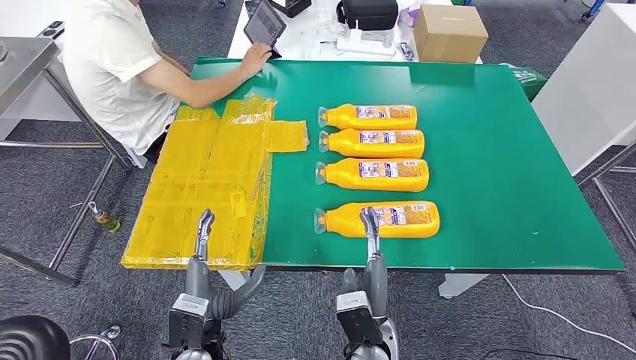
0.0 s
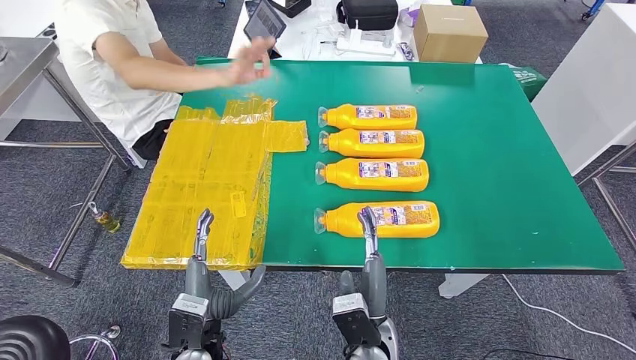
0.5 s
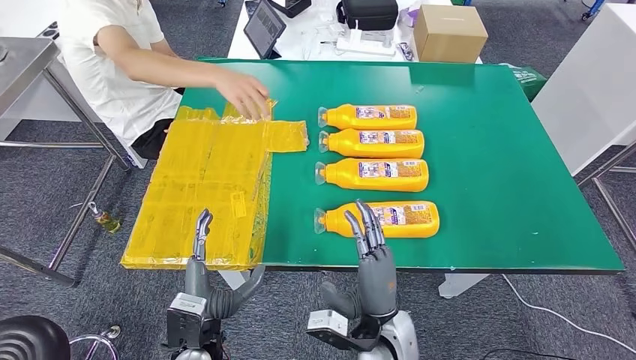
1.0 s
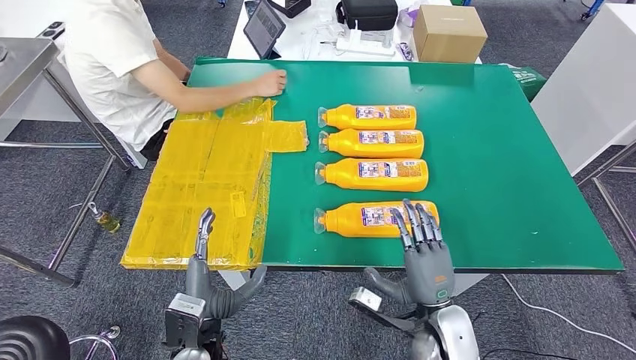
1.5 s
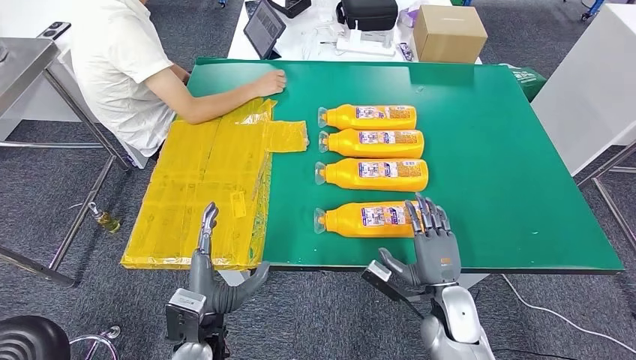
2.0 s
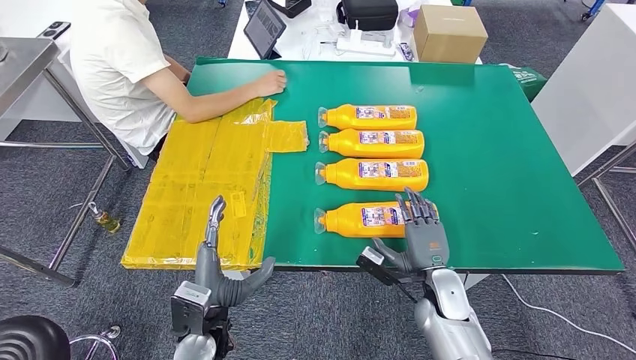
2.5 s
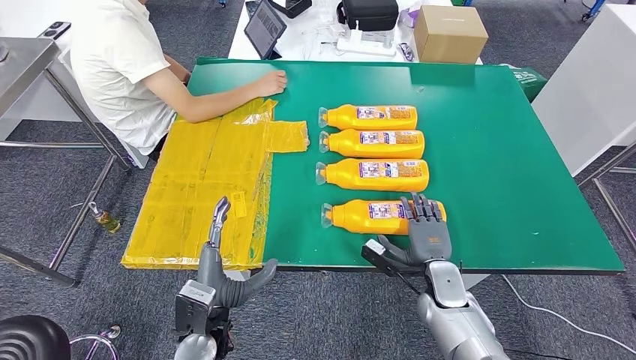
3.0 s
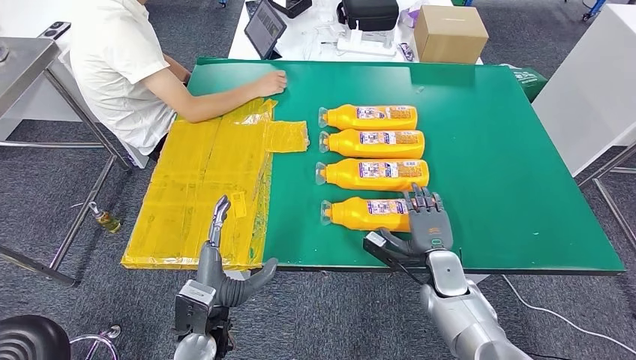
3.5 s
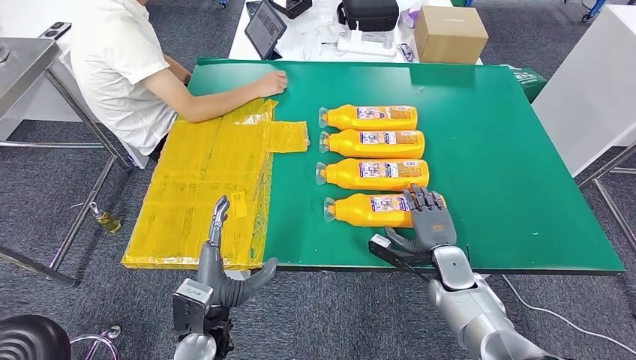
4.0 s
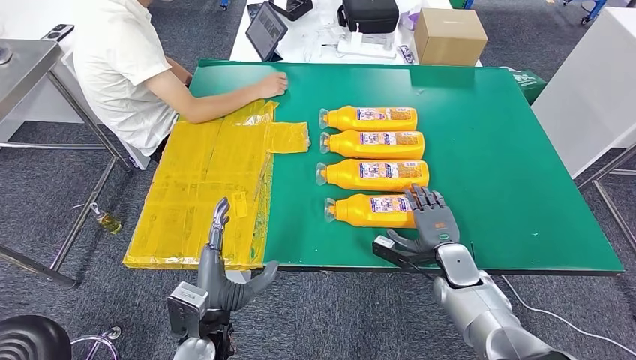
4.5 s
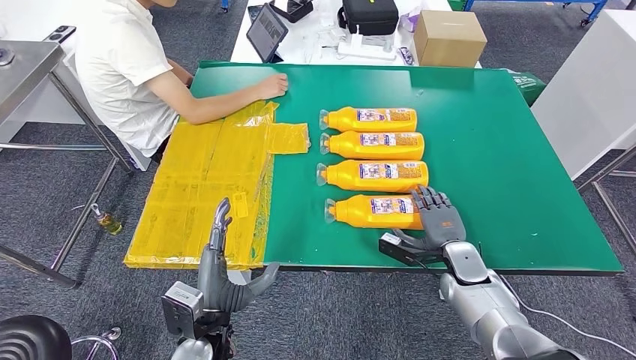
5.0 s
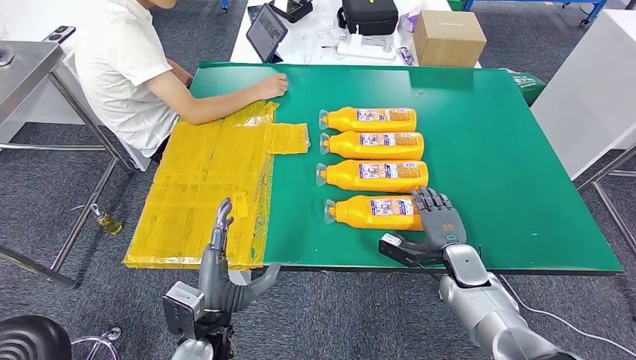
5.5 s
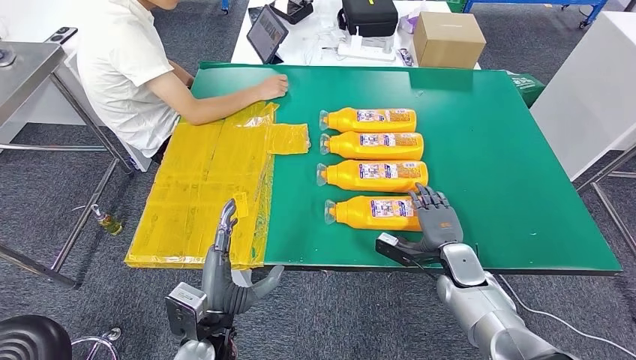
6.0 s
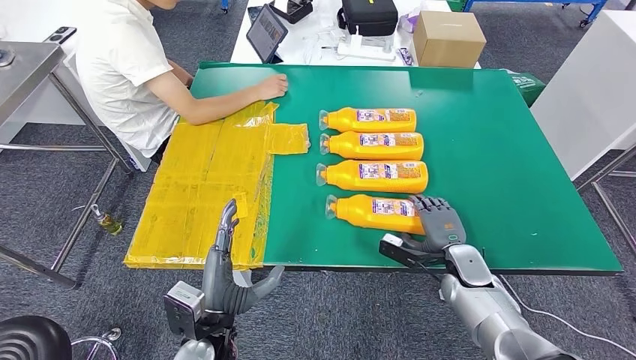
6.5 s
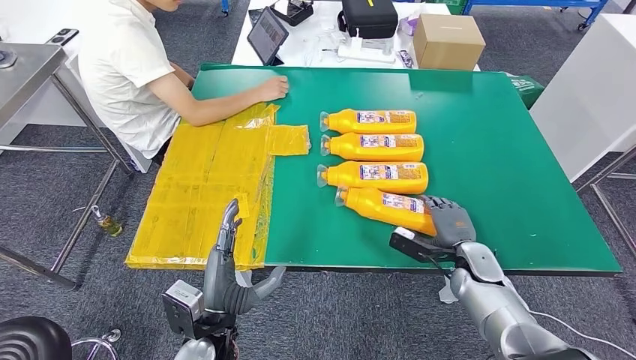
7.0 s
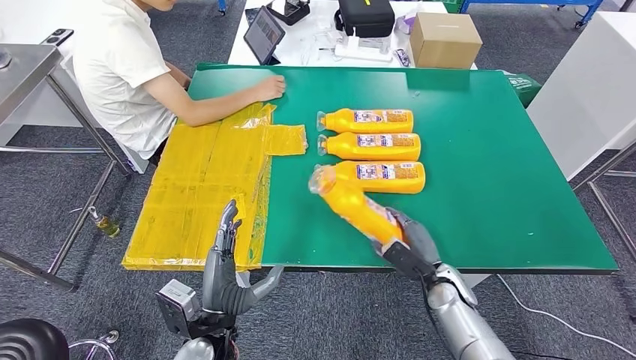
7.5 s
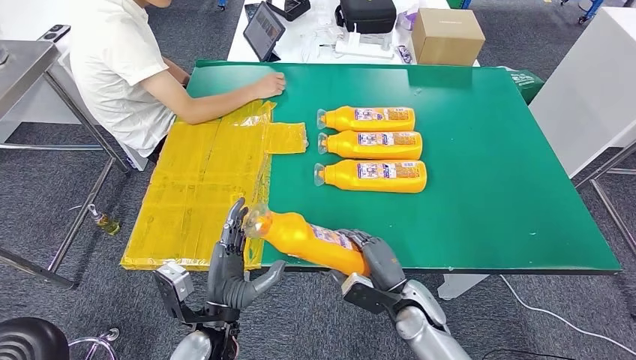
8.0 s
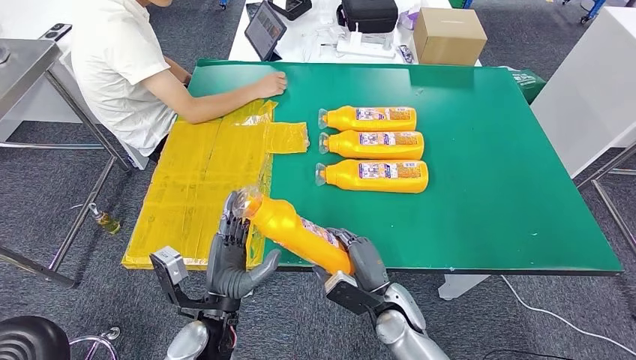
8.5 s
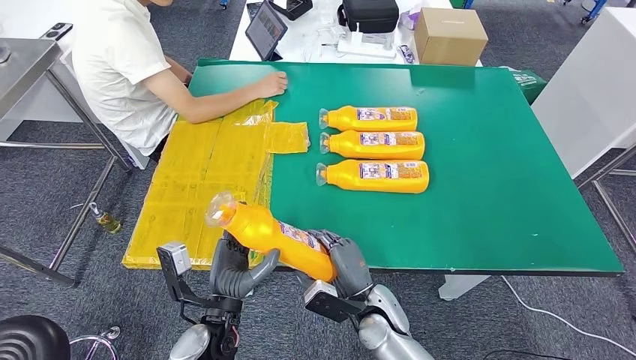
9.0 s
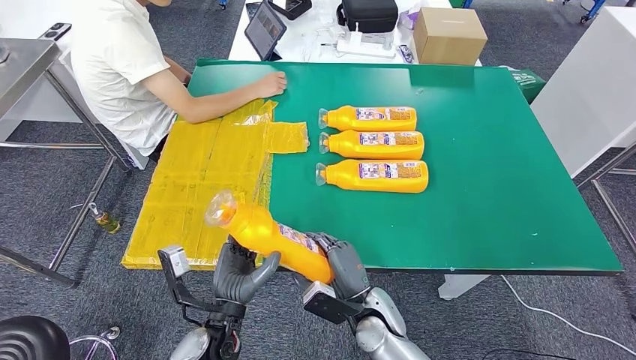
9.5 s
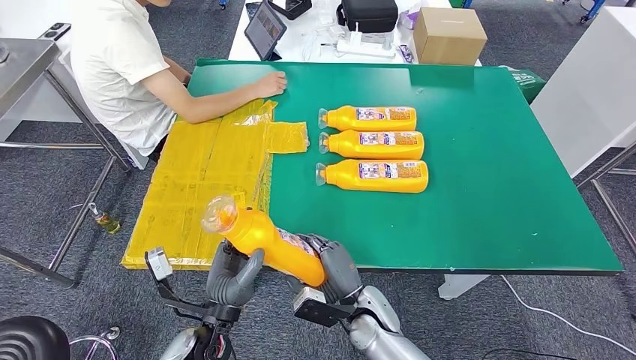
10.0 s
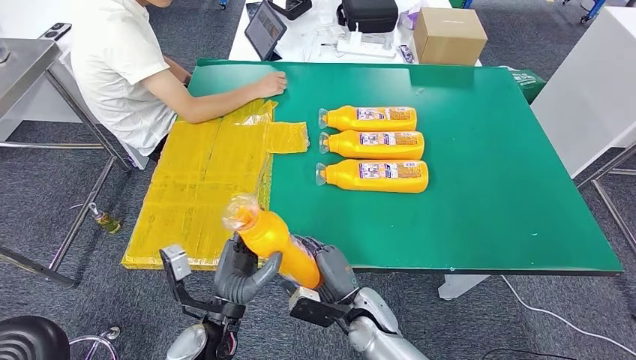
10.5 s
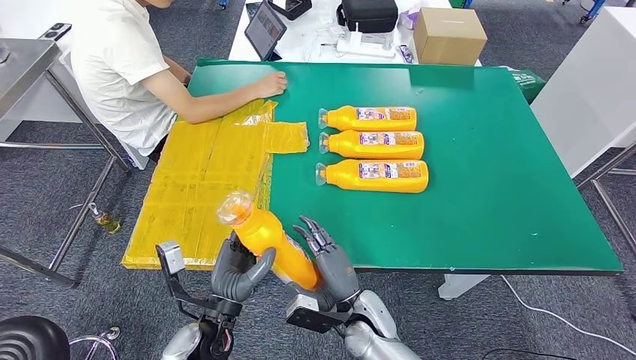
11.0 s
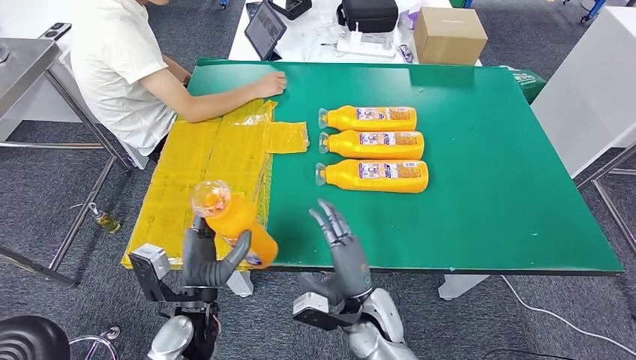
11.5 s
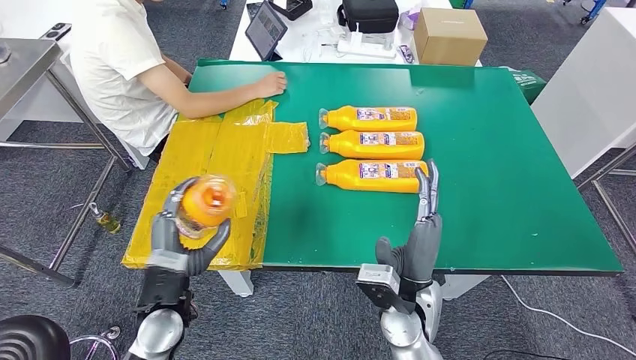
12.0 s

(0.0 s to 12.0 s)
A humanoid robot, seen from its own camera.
Step, 0.0 s - 9.5 s: Take the fast-moving consumer goods bottle from the table.
2.0 s - 4.0 s: The right hand goes about 5 cm forward.
4.0 s - 6.0 s: The hands make only small movements.
8.0 s - 10.0 s: The right hand moves to the left, about 10 cm.
10.0 s - 12.0 s: The right hand goes about 10 cm upward. Meanwhile the left hand moves to the left, some 5 cm.

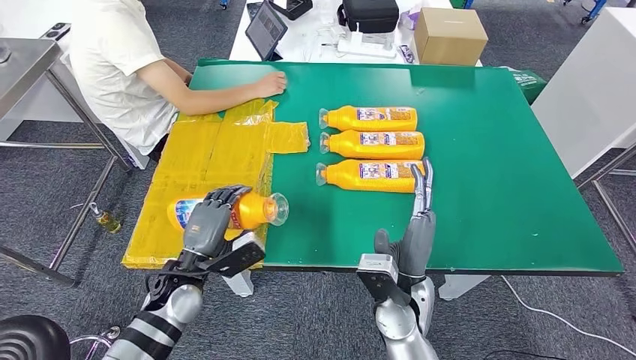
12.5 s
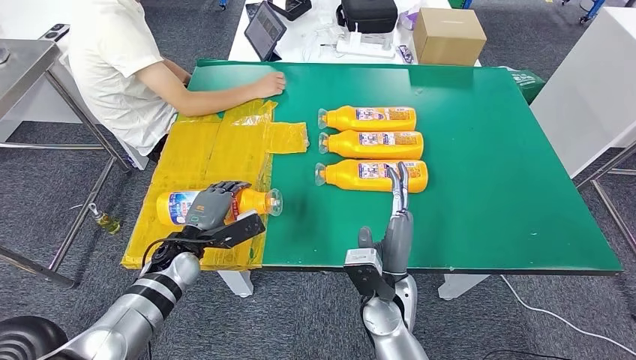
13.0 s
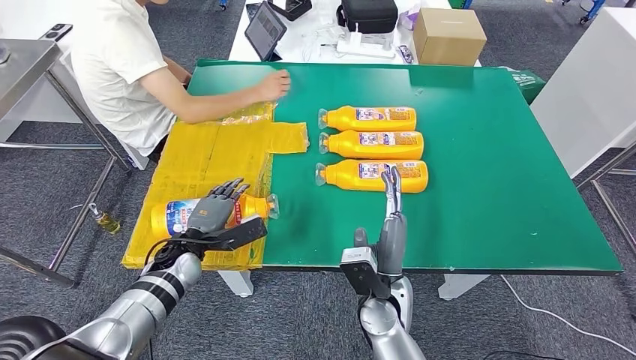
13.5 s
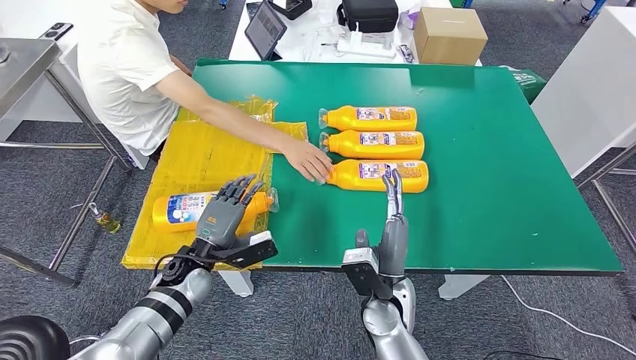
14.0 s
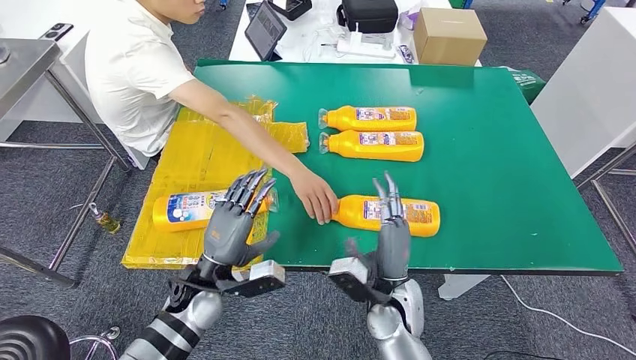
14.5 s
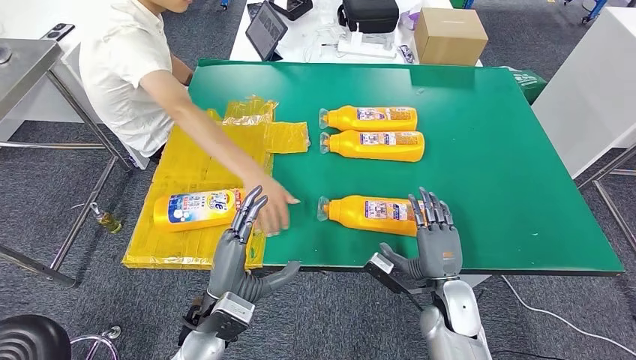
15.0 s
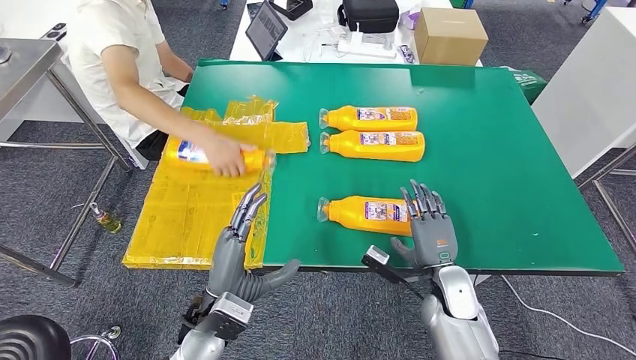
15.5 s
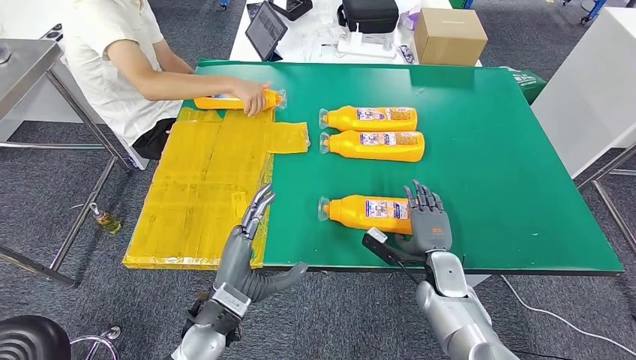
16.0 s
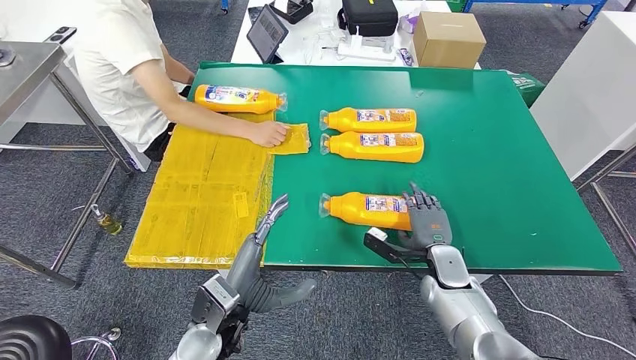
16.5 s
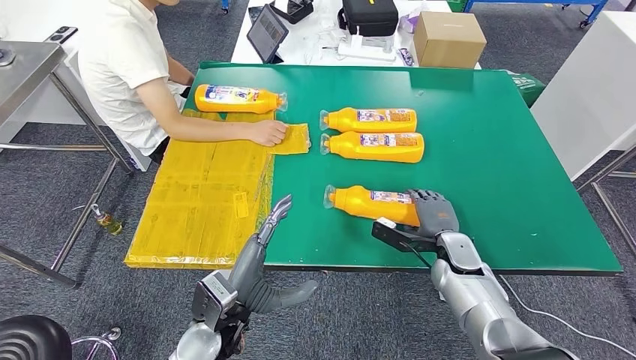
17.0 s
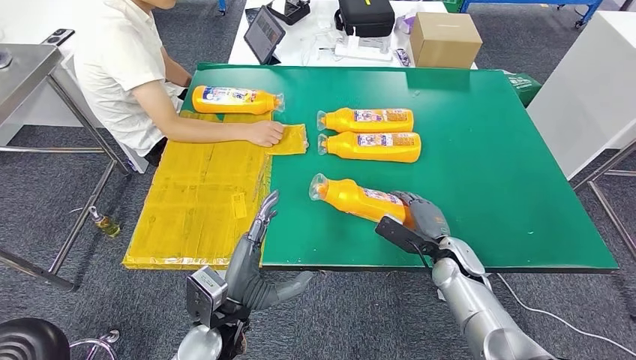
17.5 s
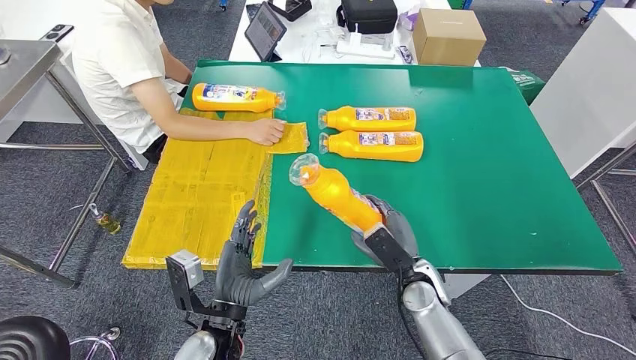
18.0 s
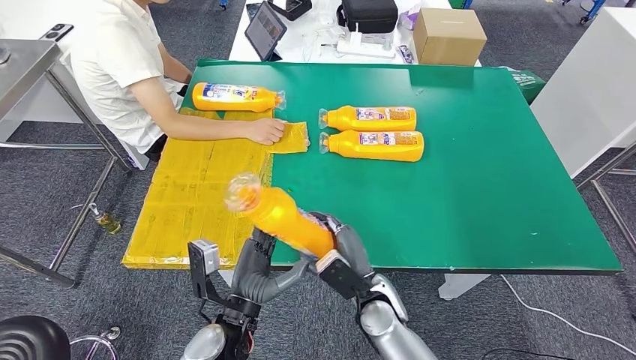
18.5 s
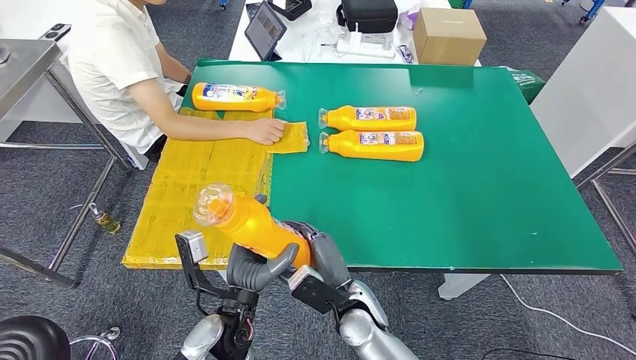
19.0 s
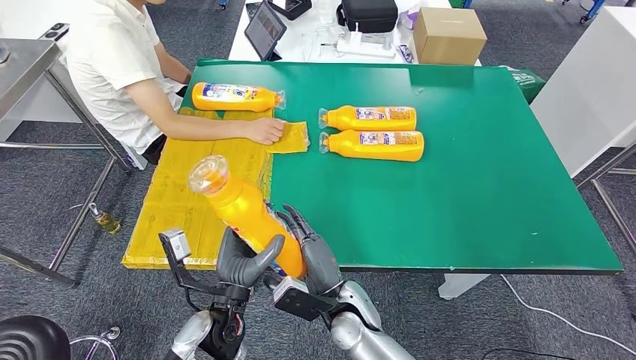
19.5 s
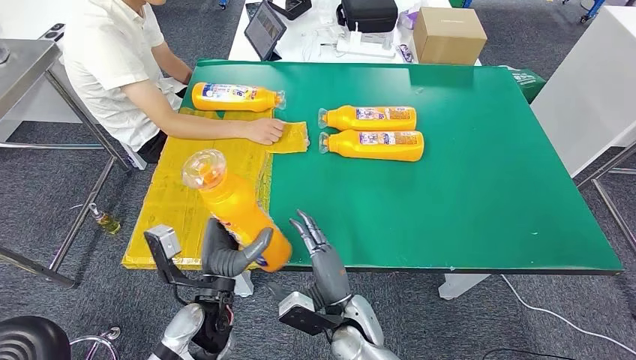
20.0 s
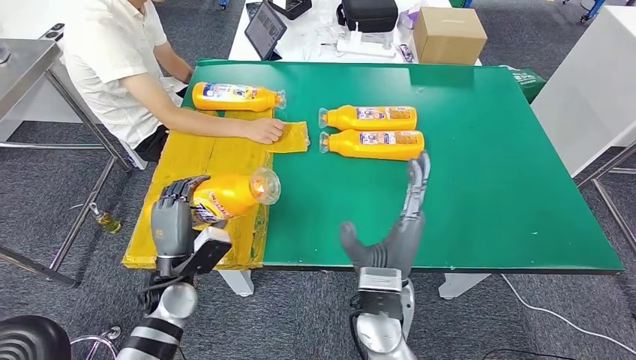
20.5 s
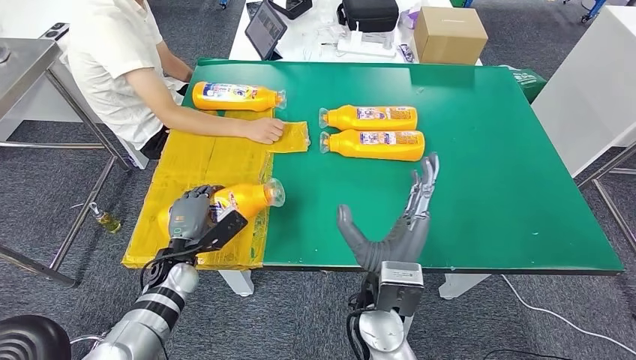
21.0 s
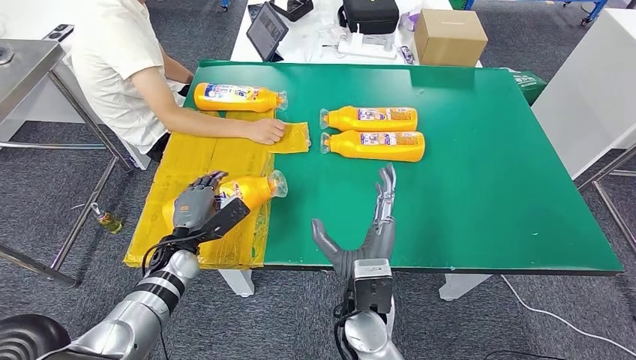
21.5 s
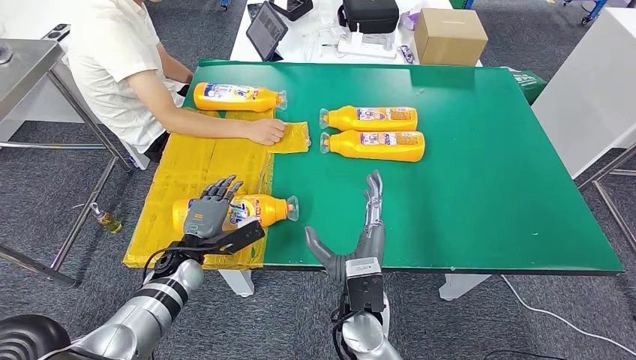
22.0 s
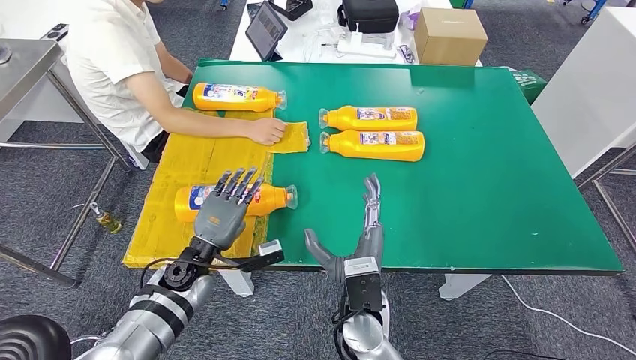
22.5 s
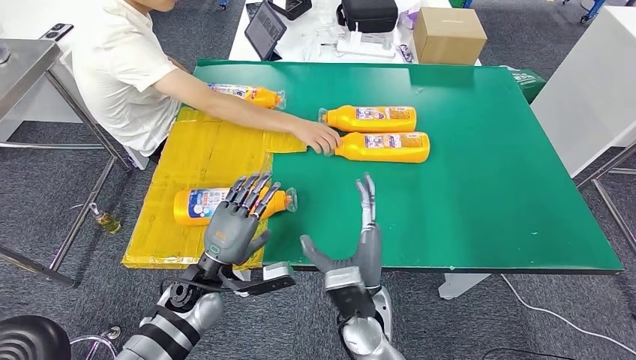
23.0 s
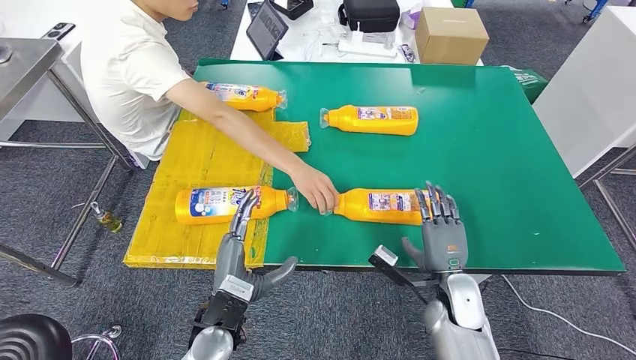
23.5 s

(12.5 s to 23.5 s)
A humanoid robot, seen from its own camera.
Step, 13.5 s - 19.5 s: Pick up the fast-moving consumer goods bottle from the table.
16.0 s - 18.0 s: The right hand travels to the left by about 5 cm.
18.0 s - 20.0 s: The right hand shifts about 15 cm to the left and backward.
20.0 s - 21.5 s: The left hand is displaced forward and to the left by some 15 cm. Meanwhile the right hand travels upward by about 10 cm.
